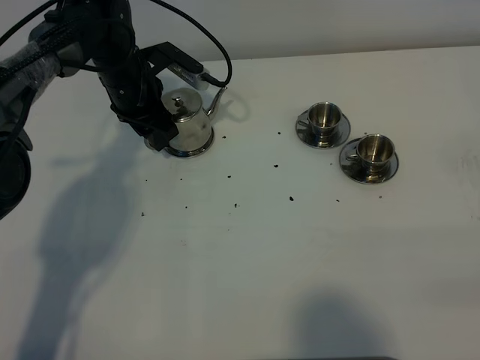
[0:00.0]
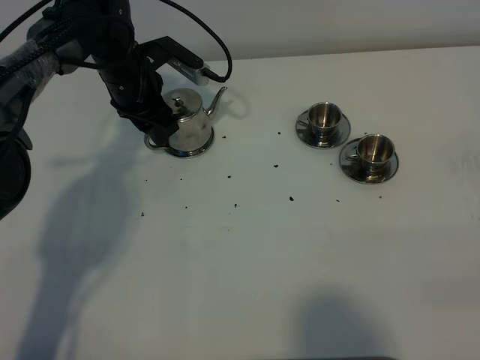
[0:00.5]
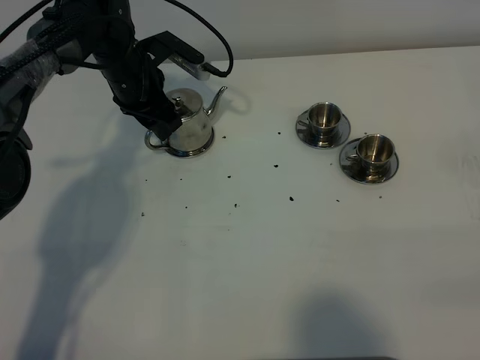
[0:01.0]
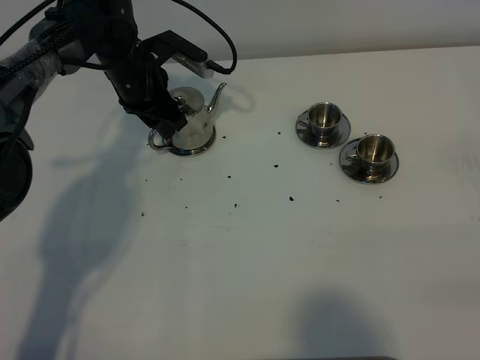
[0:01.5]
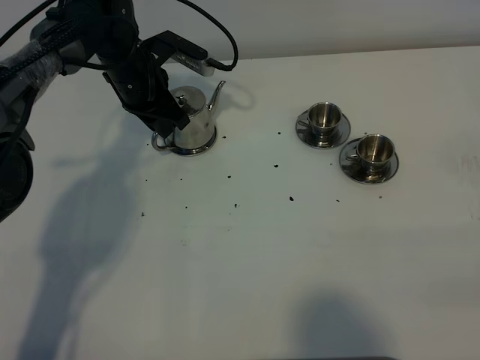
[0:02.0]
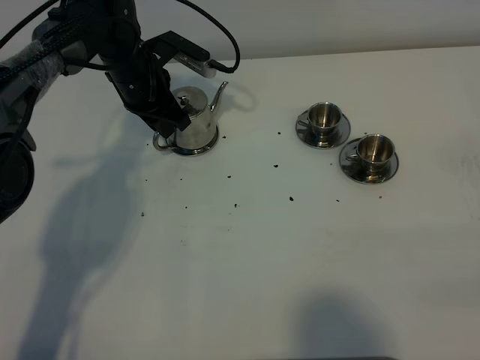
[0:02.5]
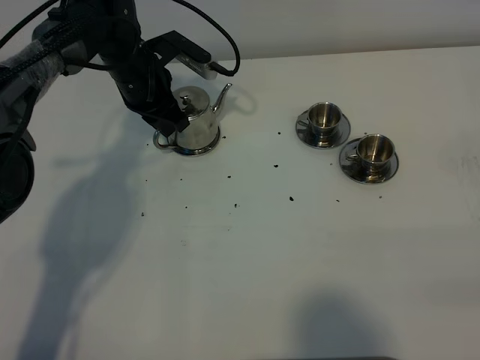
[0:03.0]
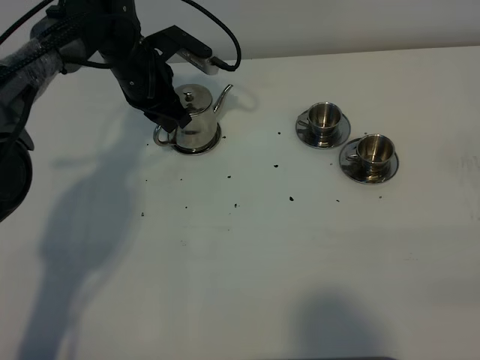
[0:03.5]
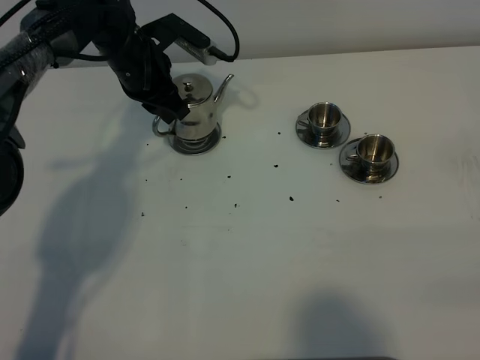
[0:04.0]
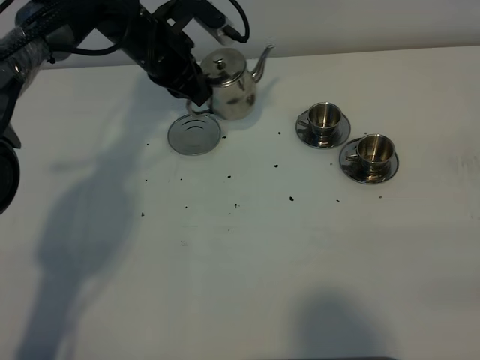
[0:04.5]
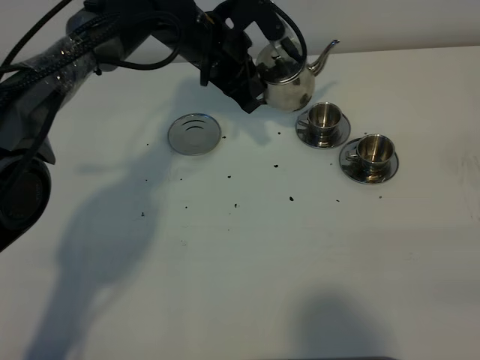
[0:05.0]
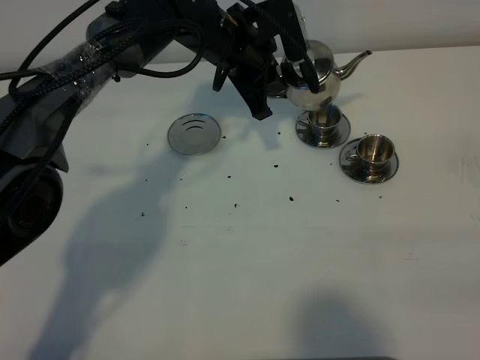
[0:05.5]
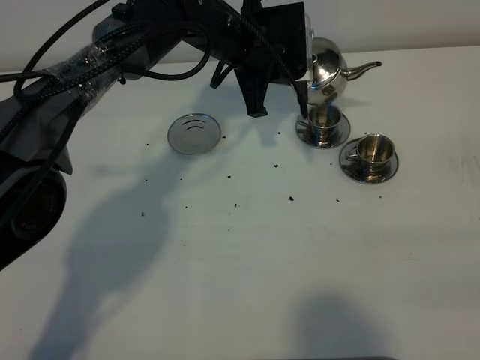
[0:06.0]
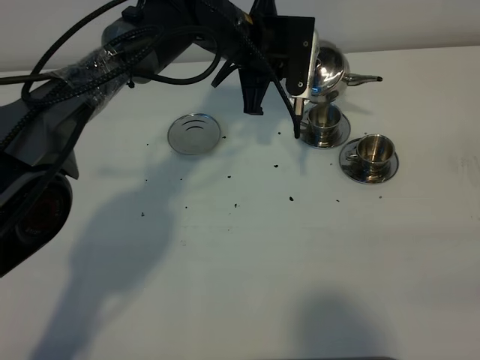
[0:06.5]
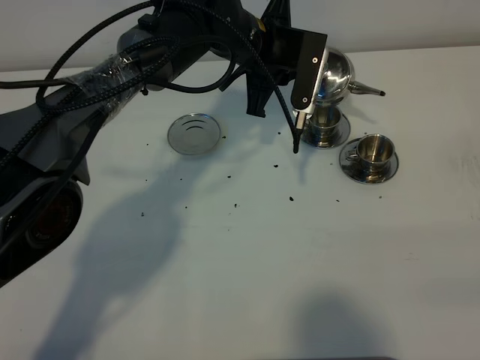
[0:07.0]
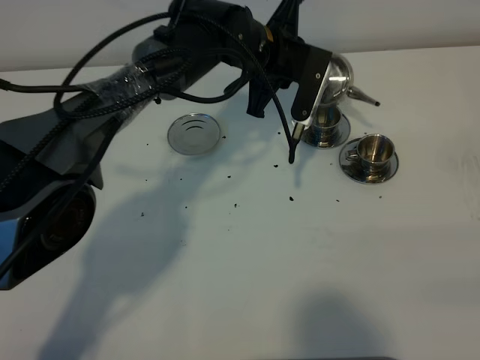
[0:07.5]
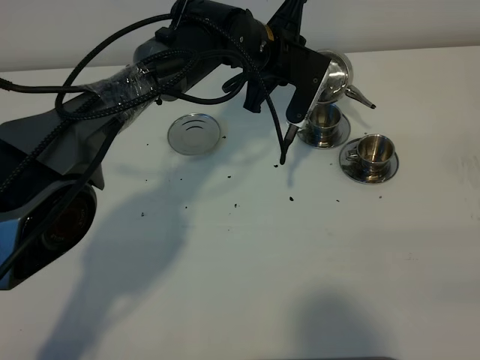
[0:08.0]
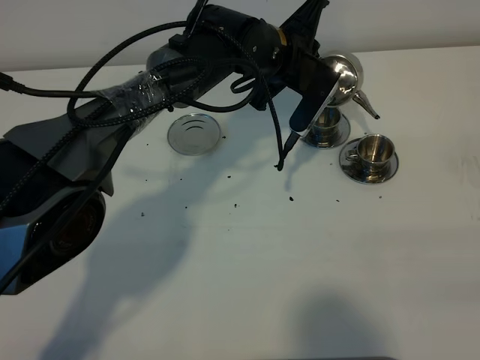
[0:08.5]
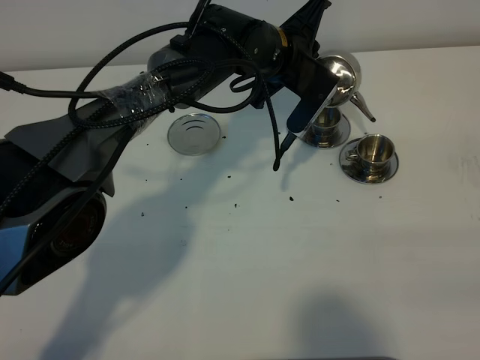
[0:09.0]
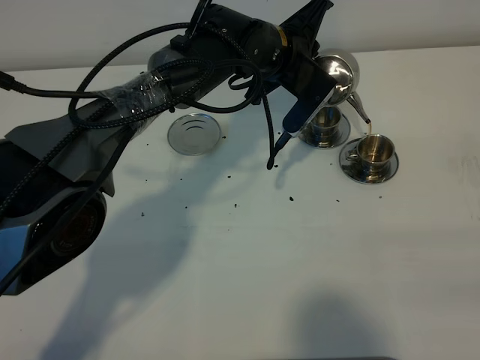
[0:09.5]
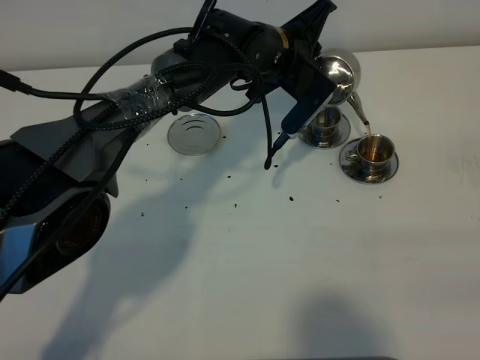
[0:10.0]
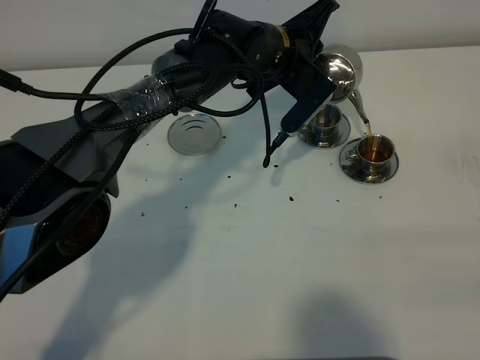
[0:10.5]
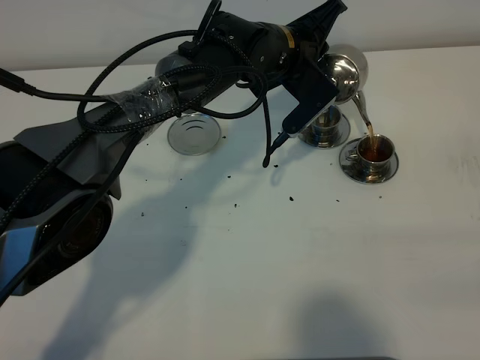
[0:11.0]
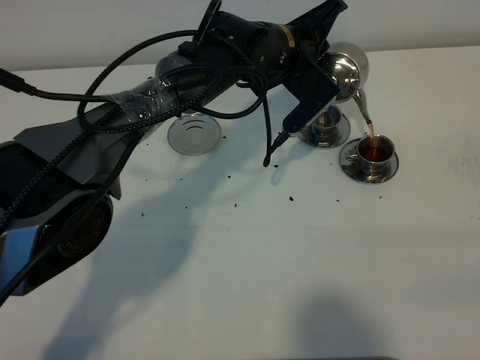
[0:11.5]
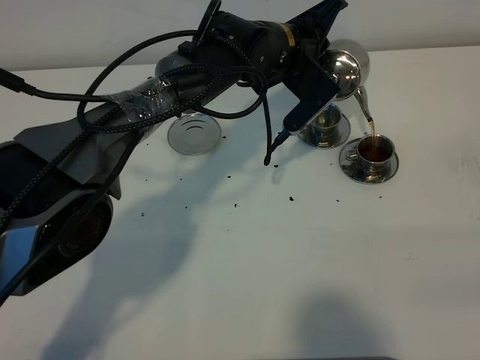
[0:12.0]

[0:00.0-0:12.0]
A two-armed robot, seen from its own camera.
Task of the whole recording: grasp the stainless steel teapot and pour the tea into the two stainless steel teacups one by one, put the stainless steel teapot back in its original place.
Step, 0:00.0 to 0:03.5: Pick up the teapot with the left gripper.
0:00.0 to 0:02.0: The left gripper closes up.
0:02.0 to 0:04.0: There are only small adjustments of the grippers.
0:04.0 to 0:06.0: The left gripper travels to the right by about 15 cm.
0:08.0 to 0:10.0: The grippers move only a little.
0:10.0 to 0:12.0: The grippers make only small movements.

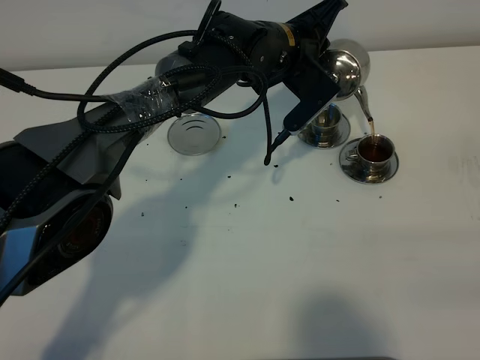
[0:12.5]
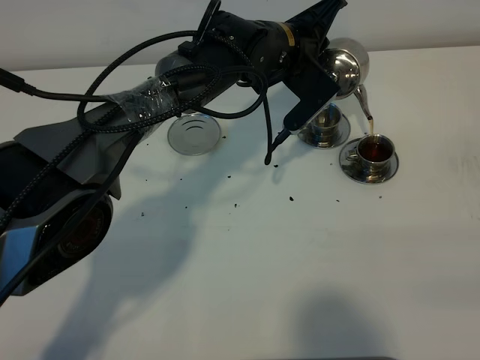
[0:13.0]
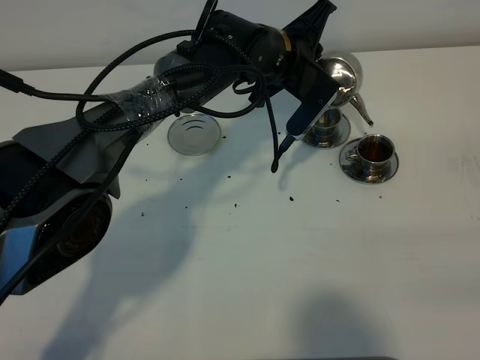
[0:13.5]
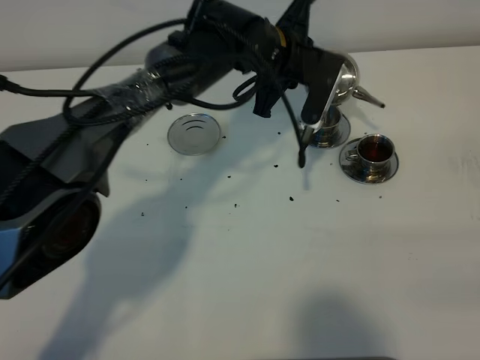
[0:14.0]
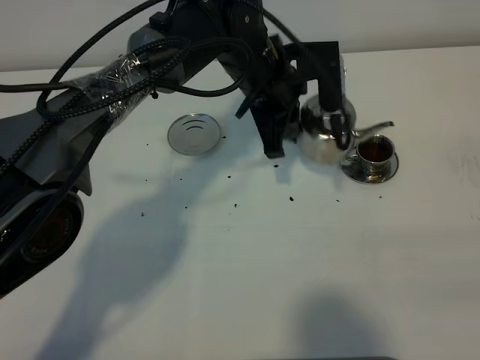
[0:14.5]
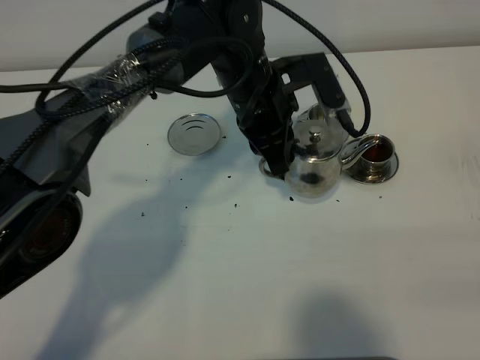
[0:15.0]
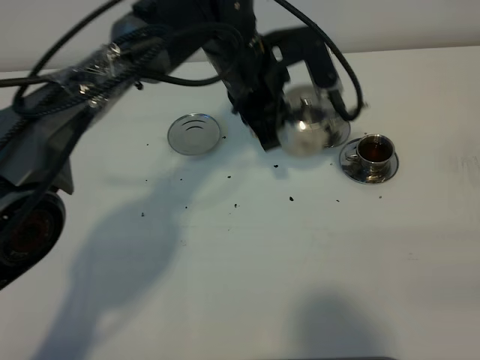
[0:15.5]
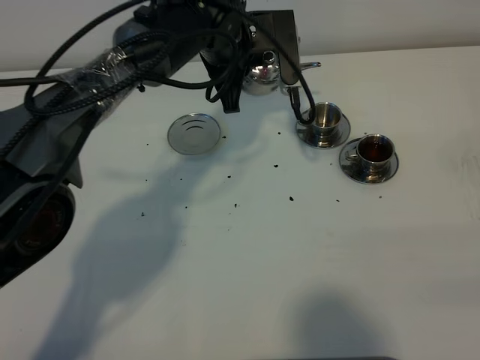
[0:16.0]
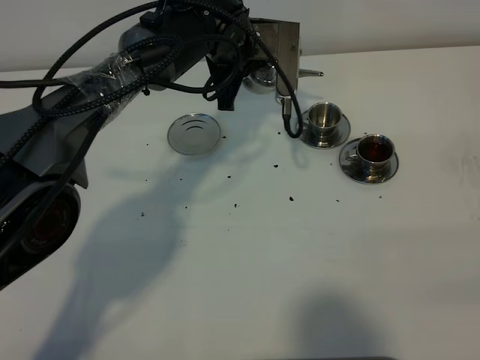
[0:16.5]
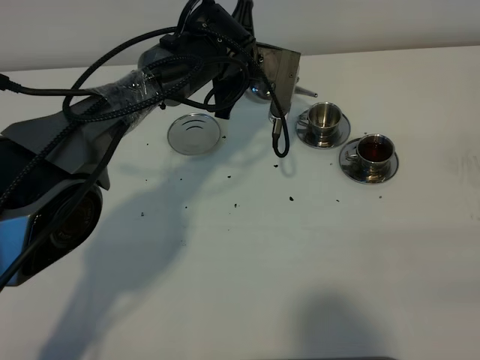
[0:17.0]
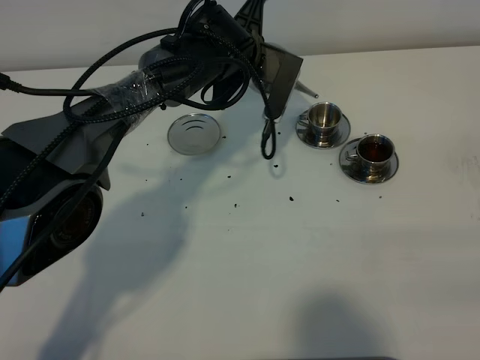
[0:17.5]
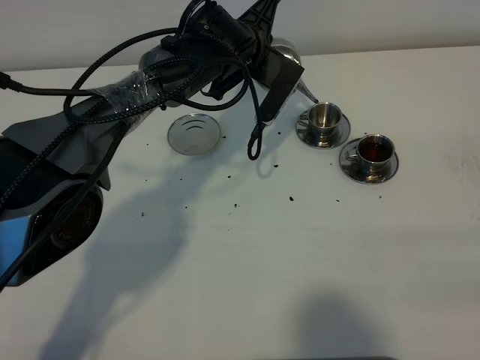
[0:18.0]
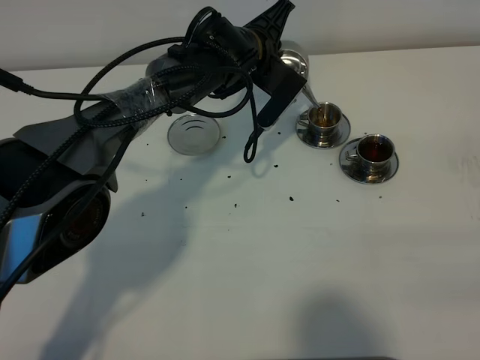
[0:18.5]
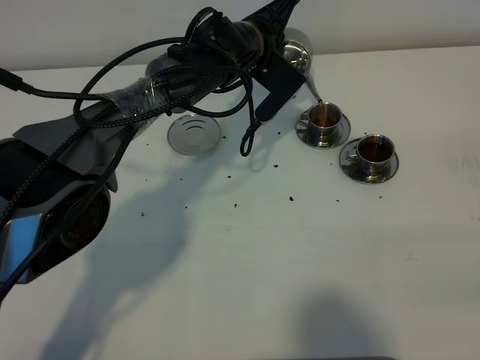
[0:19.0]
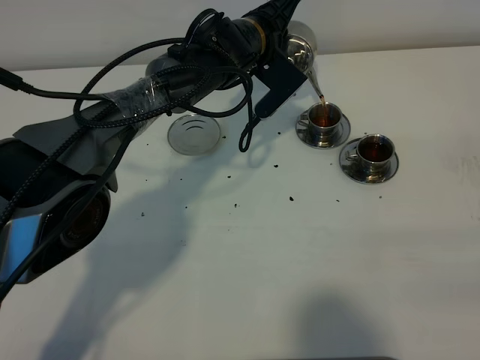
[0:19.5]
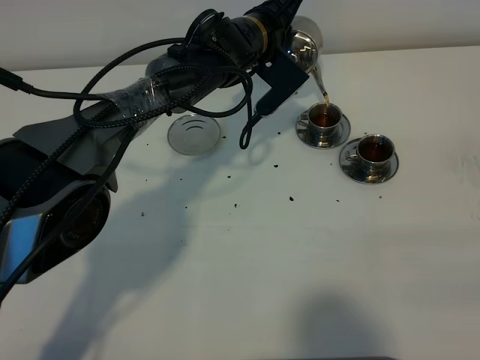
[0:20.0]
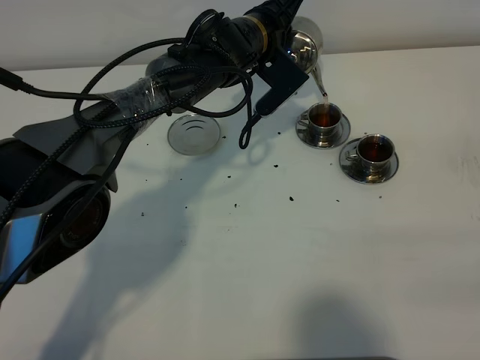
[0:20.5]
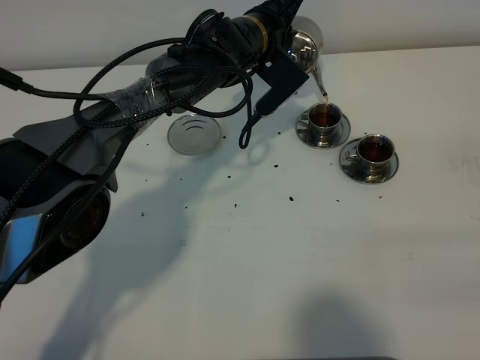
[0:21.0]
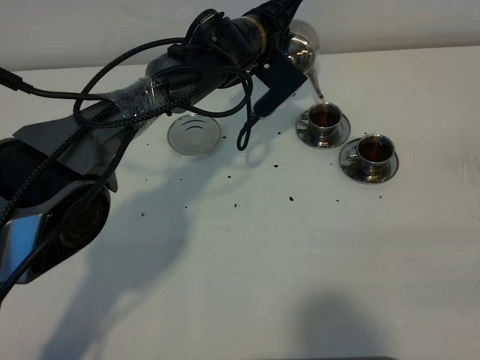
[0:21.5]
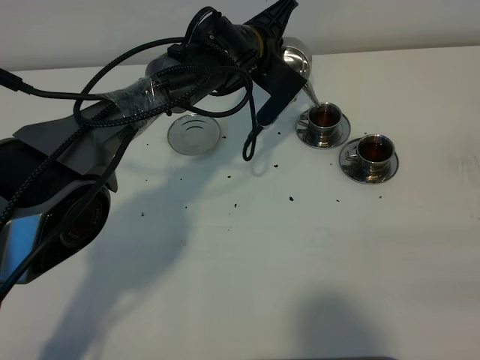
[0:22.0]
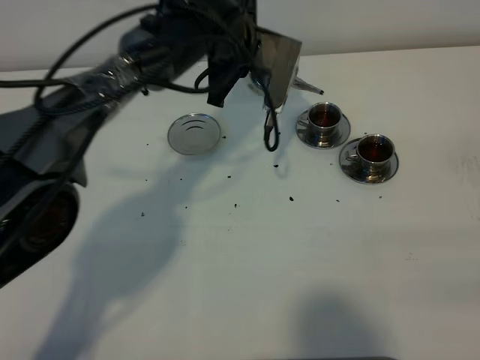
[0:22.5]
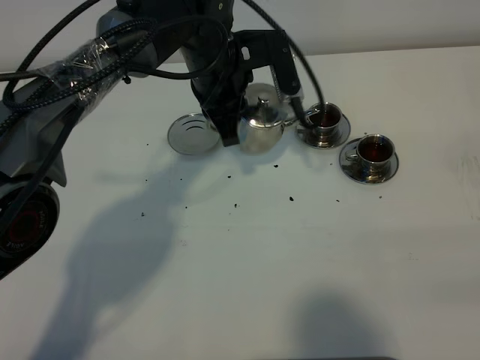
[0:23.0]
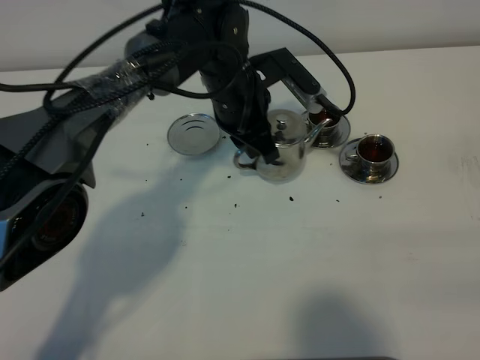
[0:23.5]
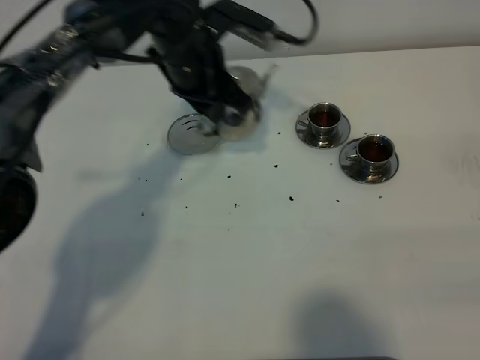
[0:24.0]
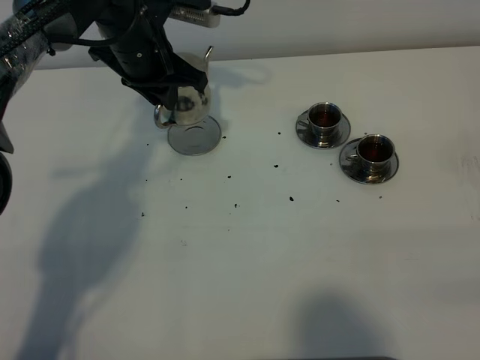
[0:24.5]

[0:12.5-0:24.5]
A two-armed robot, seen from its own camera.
Task of the whole recording: grasp the stainless steel teapot and pour the tea into the two stainless steel teacups one by one, put the stainless steel teapot back in its original place.
Step, 0:12.5 to 0:22.0: Pour tea into the teacup with the left gripper.
0:12.5 to 0:14.5: The left gripper goes about 5 cm backward.
0:14.5 to 0:16.5: The left gripper heads forward, covering roughly 5 cm.
0:16.5 to 0:18.5: The left gripper ends up approximately 5 cm from where it was.
0:18.5 to 0:20.5: The grippers stay close to where they were, moving slightly.
0:20.5 to 0:22.5: The left gripper changes place by approximately 5 cm.
0:22.5 to 0:24.5: The left gripper travels to the left by some 10 cm.

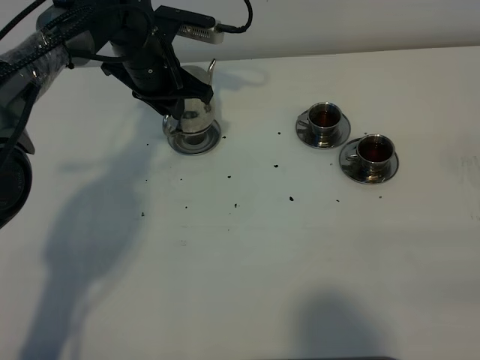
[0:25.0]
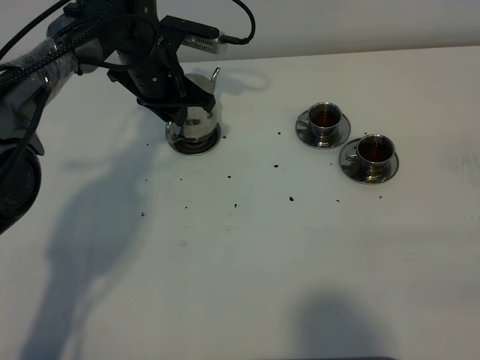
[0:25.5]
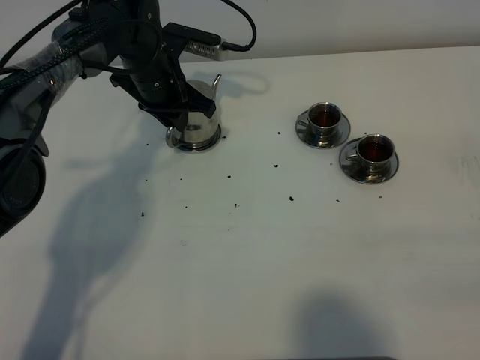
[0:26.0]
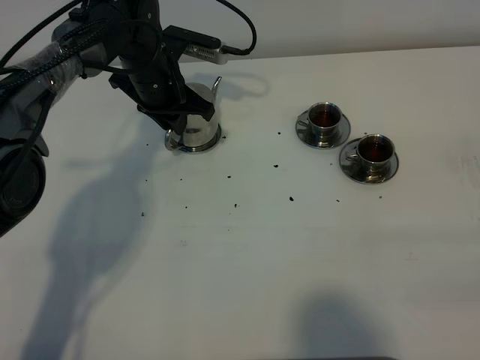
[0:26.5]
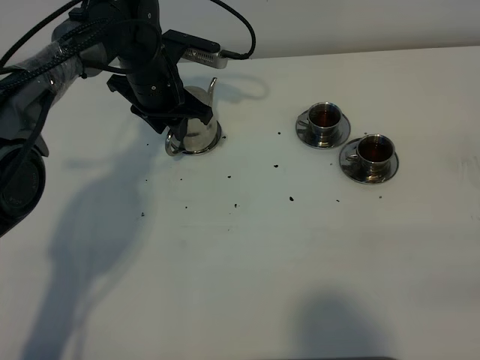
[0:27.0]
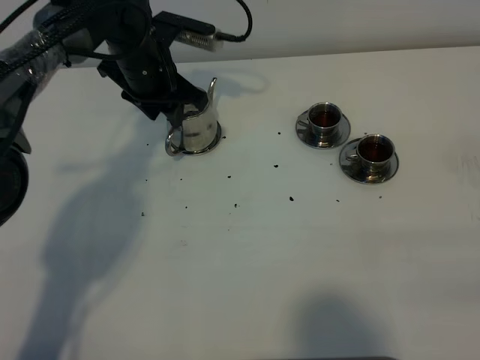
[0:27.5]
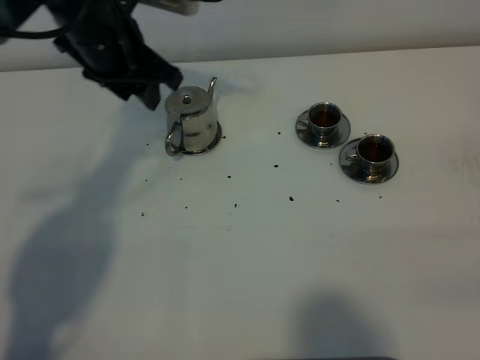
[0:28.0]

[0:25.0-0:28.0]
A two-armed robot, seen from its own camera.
Task of the whole recording: grasp the stainless steel teapot and pour the tea into the two stainless steel teacups one by one, put the stainless steel teapot back in its original place.
0:25.0 to 0:26.5: The grippers make only small movements.
0:26.5 to 0:28.0: The left gripper moves upward and backward, roughly 15 cm, and opens its fingers.
